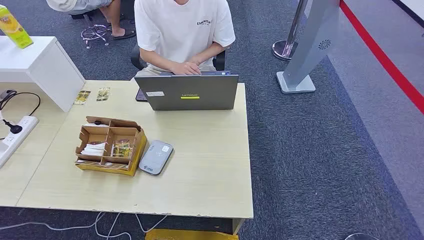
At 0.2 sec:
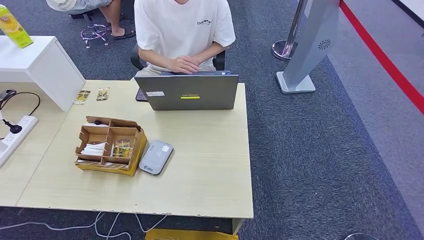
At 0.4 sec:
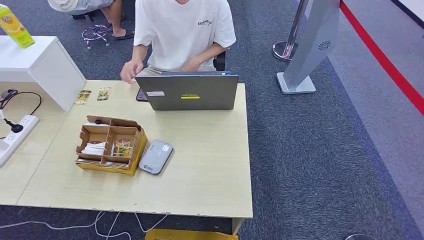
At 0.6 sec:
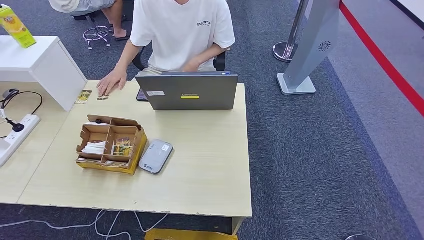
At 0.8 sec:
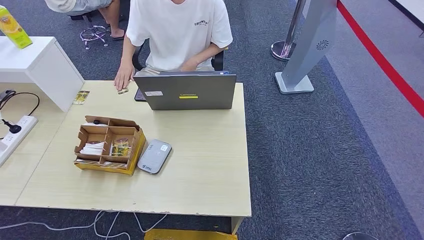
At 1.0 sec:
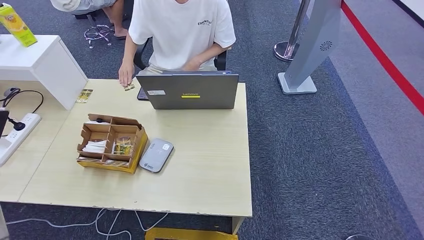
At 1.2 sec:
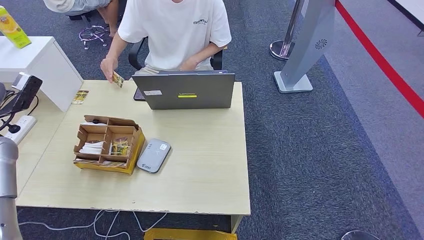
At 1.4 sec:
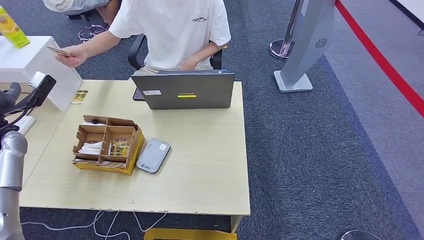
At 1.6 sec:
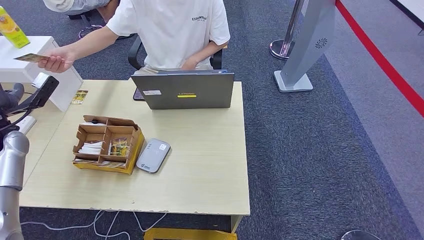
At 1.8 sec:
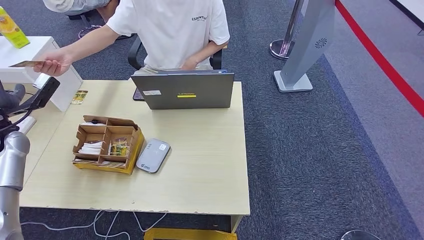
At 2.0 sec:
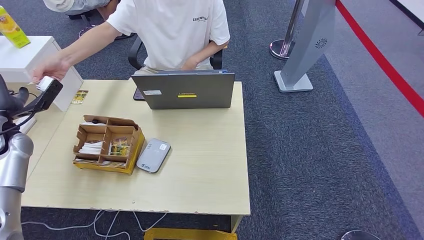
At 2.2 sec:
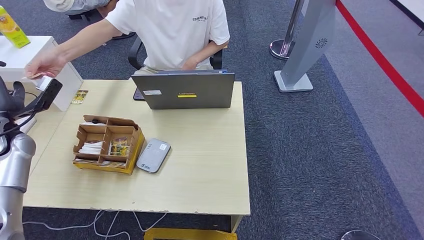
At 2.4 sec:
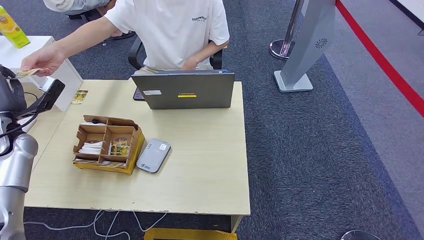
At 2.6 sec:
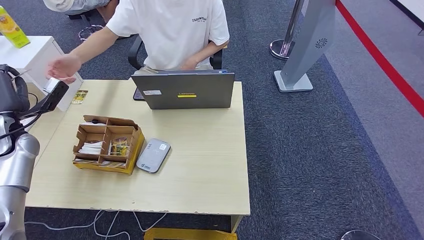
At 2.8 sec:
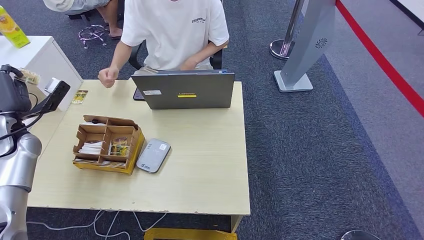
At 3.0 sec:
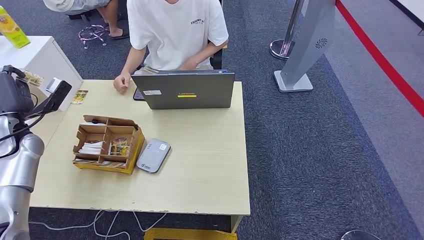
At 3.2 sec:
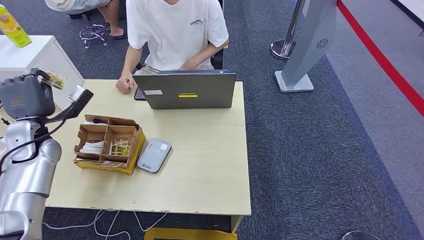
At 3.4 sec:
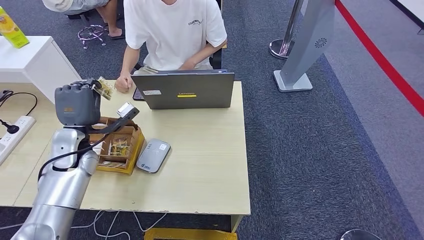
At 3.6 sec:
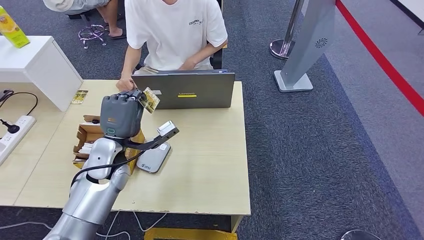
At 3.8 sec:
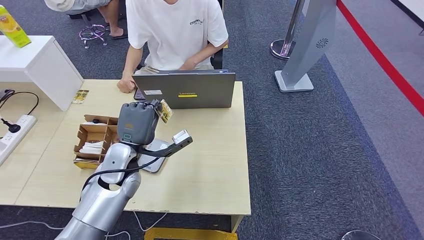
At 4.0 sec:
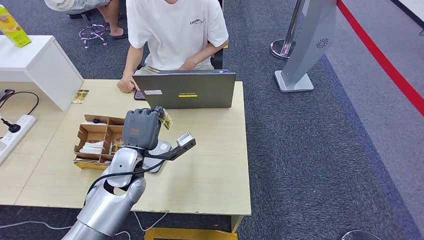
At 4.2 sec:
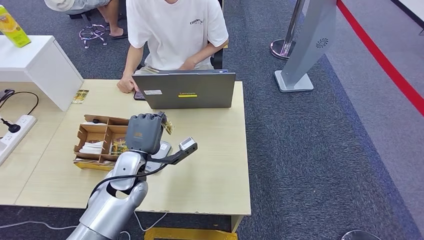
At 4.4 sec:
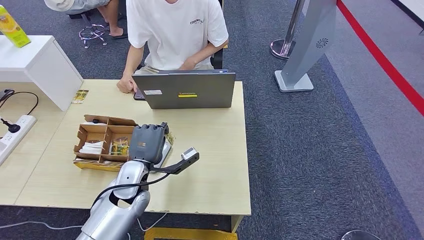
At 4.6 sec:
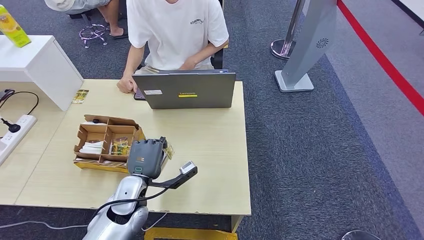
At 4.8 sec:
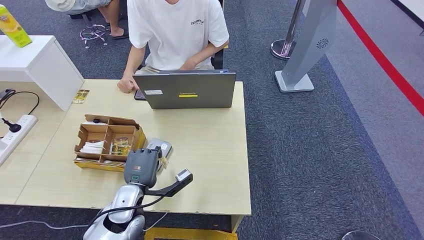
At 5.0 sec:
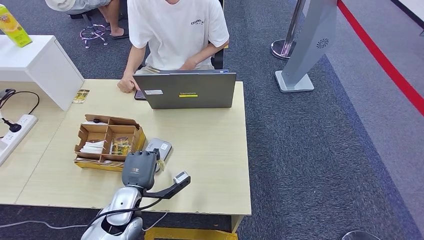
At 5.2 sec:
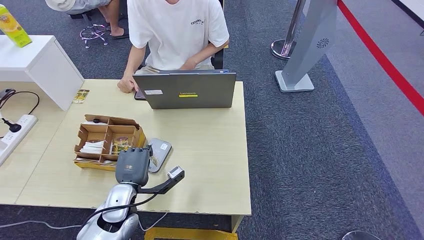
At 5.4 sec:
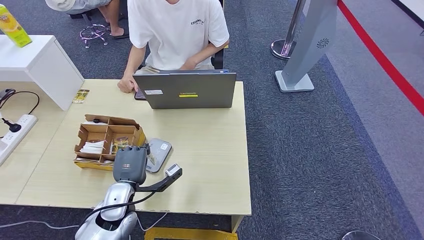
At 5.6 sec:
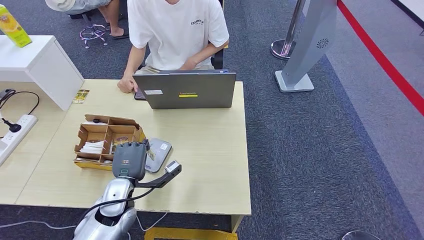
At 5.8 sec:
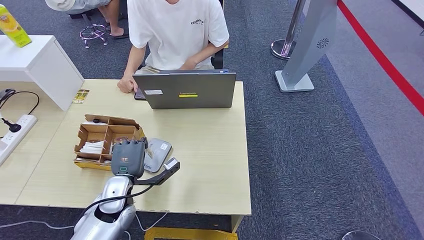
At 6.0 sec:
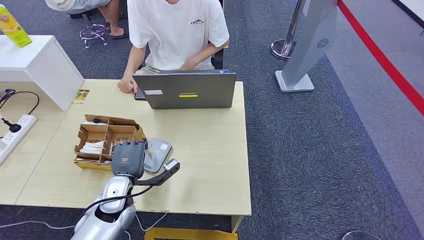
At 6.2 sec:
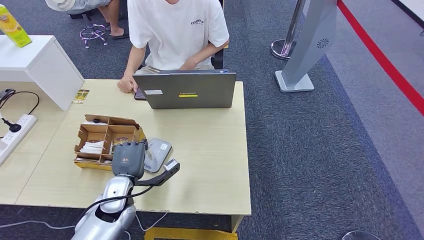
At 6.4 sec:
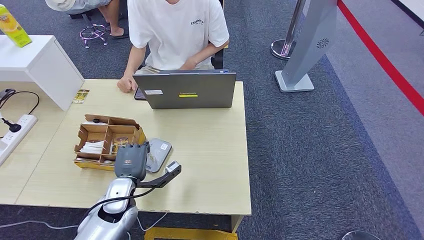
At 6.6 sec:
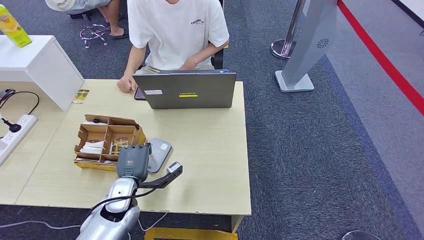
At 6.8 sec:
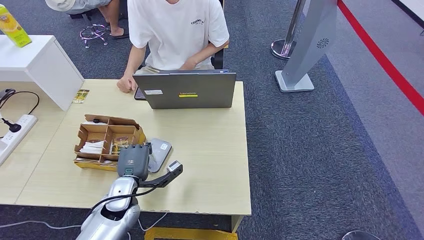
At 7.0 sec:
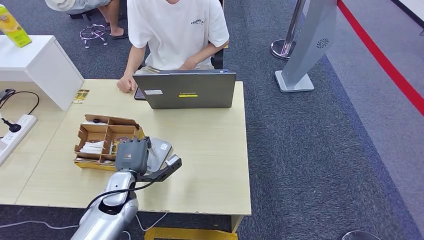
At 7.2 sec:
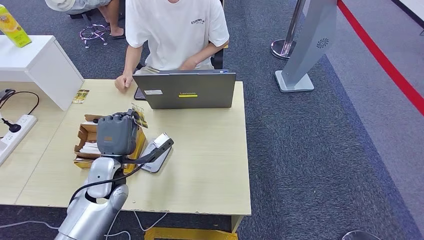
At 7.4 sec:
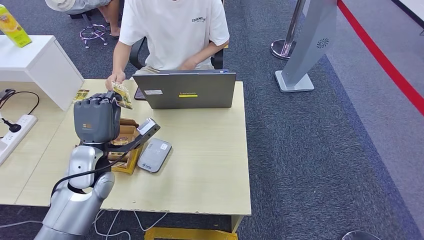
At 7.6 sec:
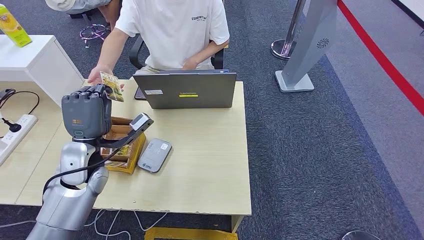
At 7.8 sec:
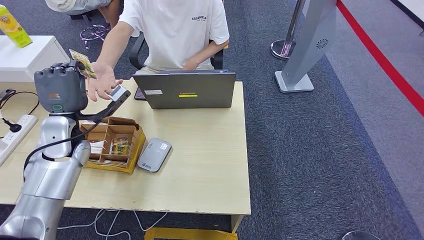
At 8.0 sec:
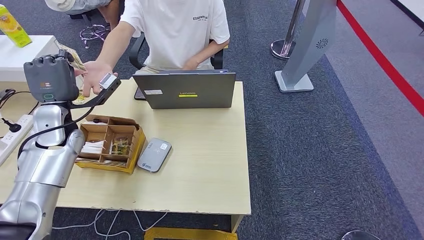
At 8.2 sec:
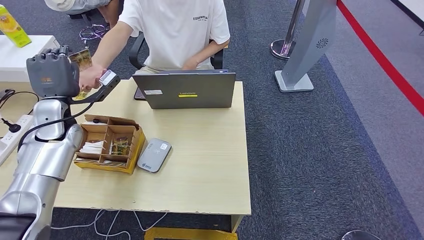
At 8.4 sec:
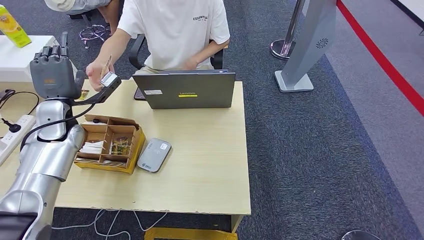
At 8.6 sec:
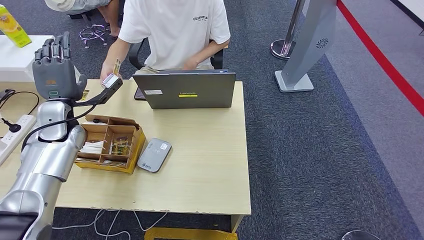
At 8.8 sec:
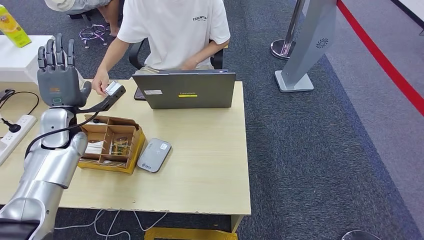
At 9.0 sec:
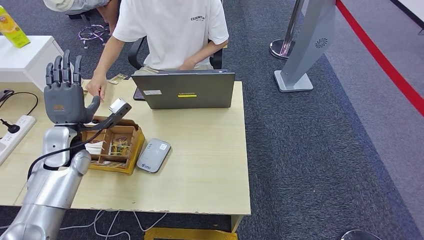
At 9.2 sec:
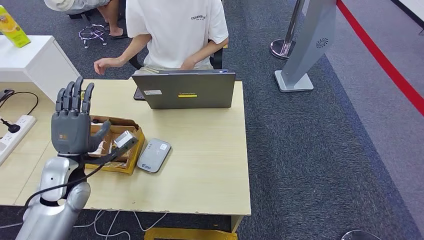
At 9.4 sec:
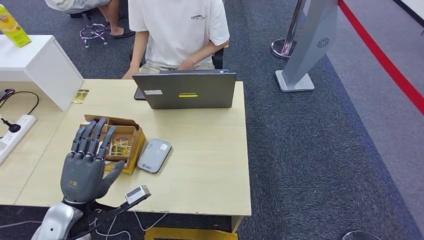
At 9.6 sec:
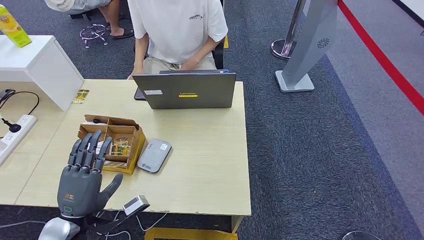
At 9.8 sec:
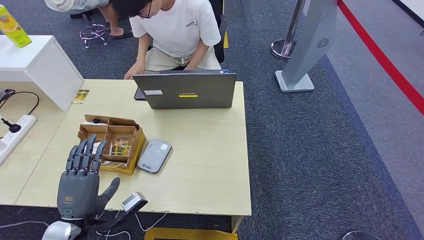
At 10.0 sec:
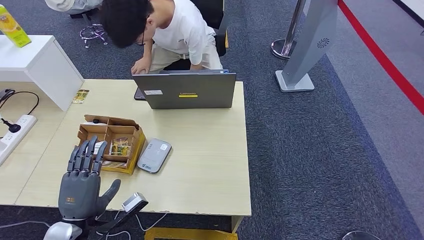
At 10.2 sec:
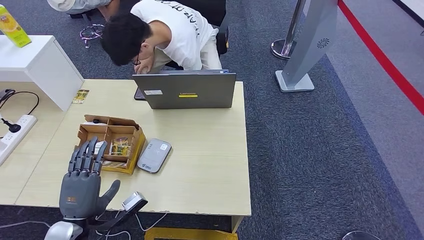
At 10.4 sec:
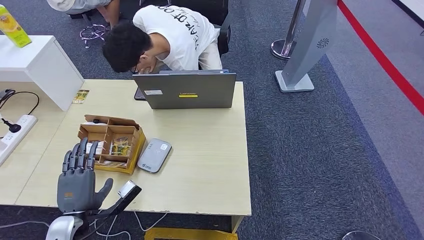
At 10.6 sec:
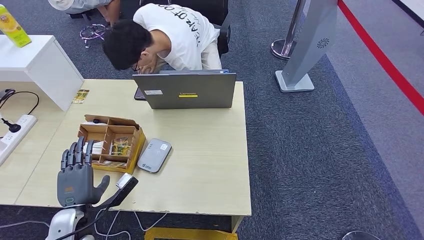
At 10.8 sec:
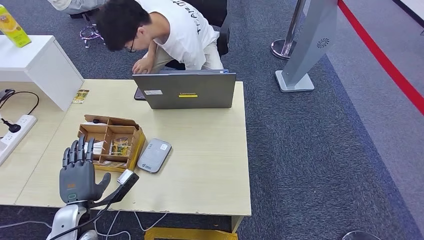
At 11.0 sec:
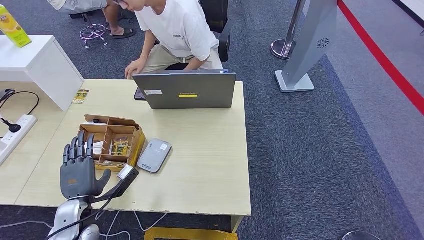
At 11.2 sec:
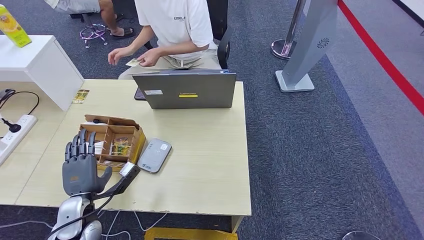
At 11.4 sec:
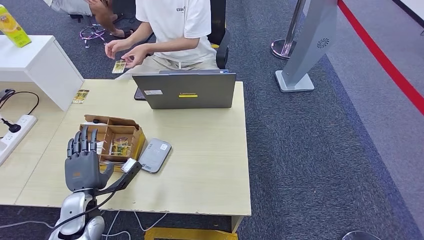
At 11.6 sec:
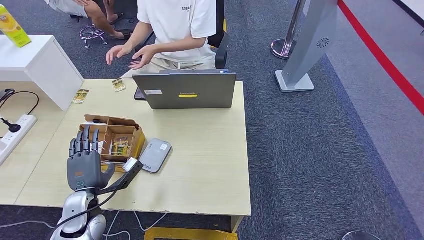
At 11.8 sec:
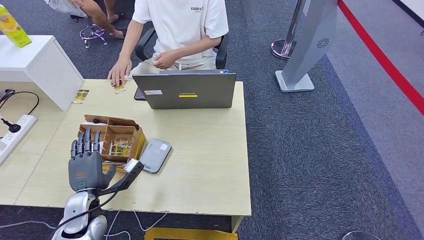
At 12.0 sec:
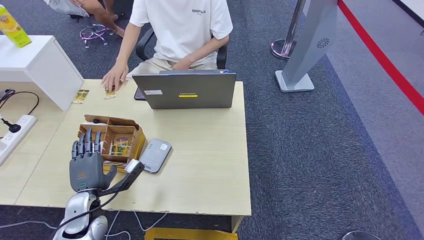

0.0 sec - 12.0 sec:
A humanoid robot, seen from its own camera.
Step, 0.0 sec - 3.0 sec: Take the ID card from the person's hand.
Step, 3.2 sec - 6.2 sec: Place the ID card on the card reader.
Step, 6.4 sec - 8.6 sec: Hand the ID card to the person.
1.6 sec - 3.0 sec: There are only small adjustments of the hands.
3.0 sec - 4.4 sec: The left hand heads to the right, covering roughly 30 cm.
4.4 sec - 6.0 sec: The left hand moves about 5 cm.
6.0 sec - 7.6 sec: The left hand goes approximately 15 cm upward, forward and to the left.
7.6 sec - 9.0 sec: The left hand shifts approximately 5 cm to the left.
10.4 sec - 12.0 sec: The left hand goes about 5 cm forward.

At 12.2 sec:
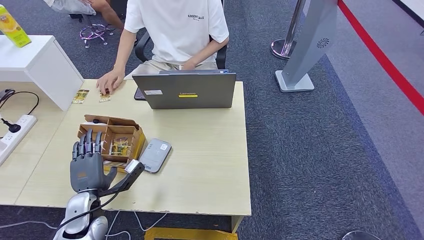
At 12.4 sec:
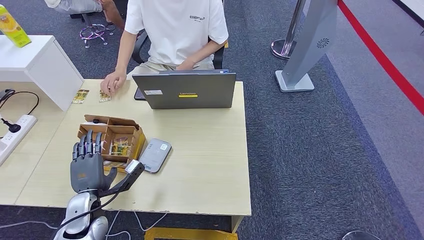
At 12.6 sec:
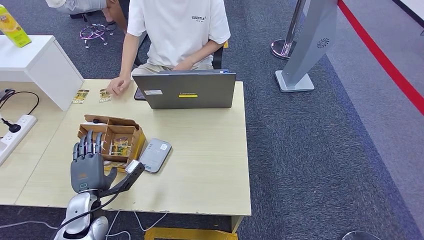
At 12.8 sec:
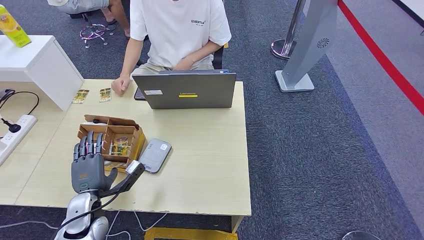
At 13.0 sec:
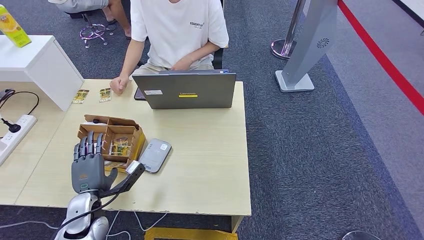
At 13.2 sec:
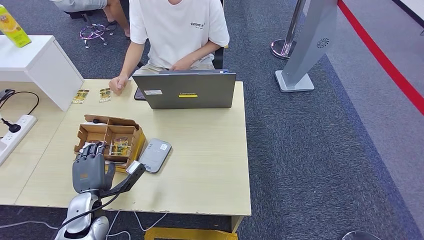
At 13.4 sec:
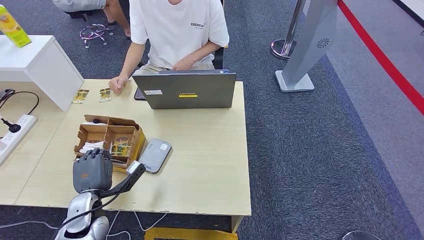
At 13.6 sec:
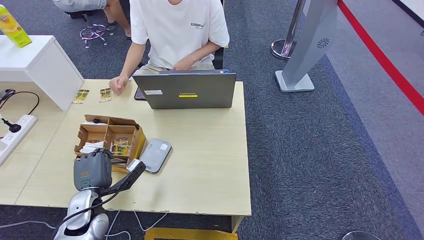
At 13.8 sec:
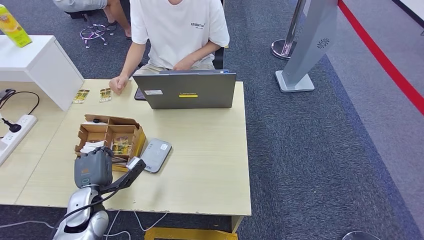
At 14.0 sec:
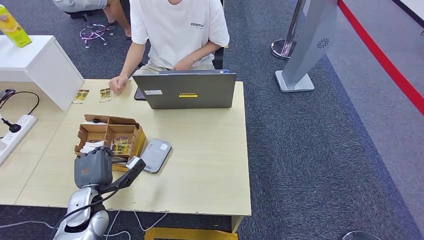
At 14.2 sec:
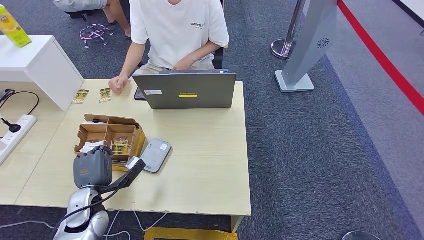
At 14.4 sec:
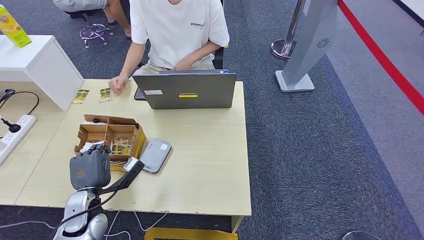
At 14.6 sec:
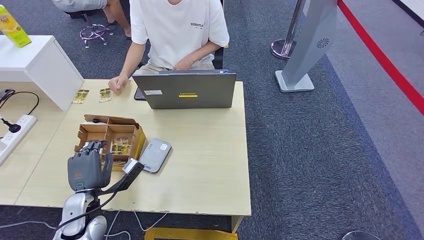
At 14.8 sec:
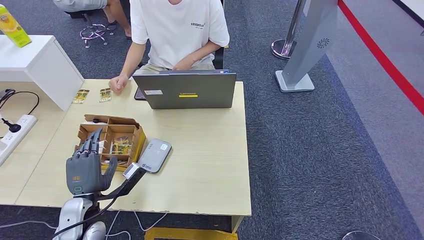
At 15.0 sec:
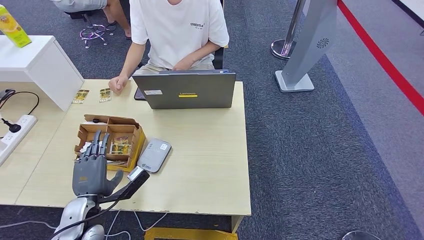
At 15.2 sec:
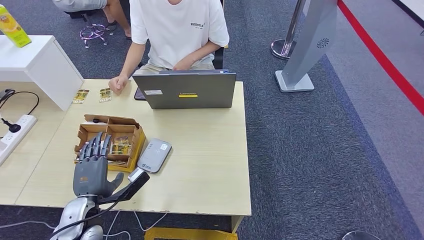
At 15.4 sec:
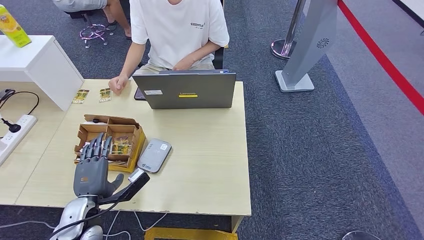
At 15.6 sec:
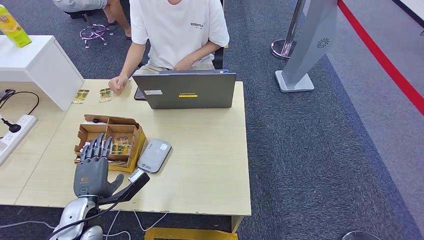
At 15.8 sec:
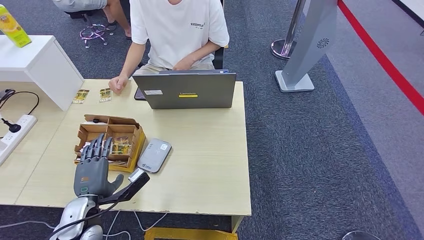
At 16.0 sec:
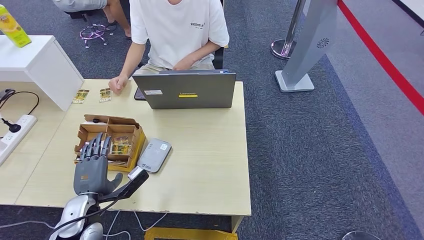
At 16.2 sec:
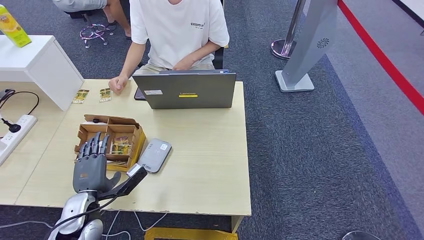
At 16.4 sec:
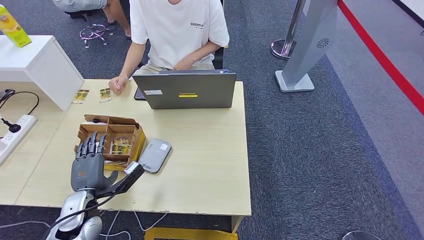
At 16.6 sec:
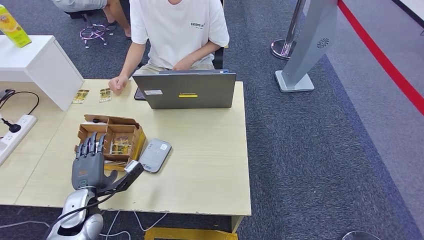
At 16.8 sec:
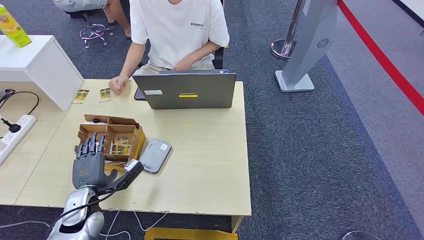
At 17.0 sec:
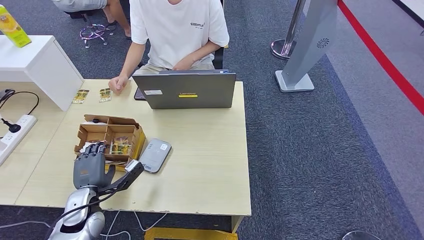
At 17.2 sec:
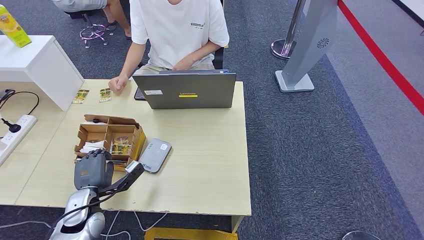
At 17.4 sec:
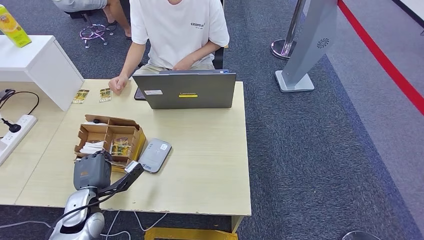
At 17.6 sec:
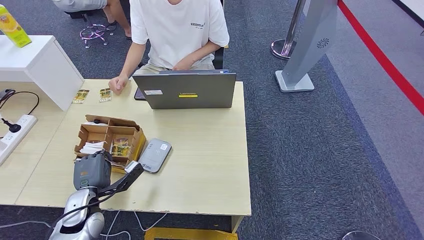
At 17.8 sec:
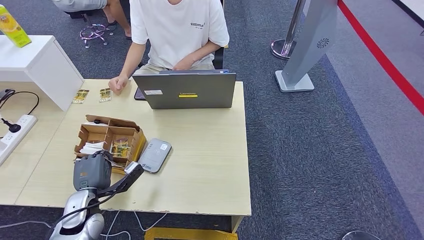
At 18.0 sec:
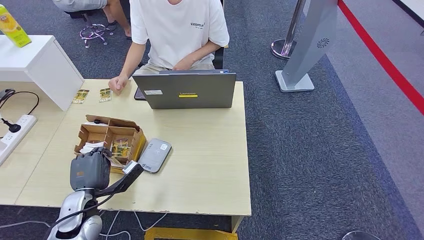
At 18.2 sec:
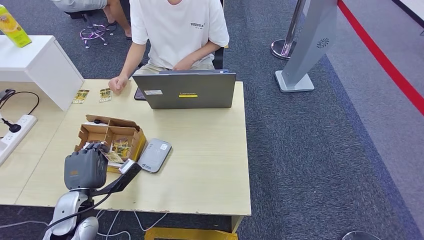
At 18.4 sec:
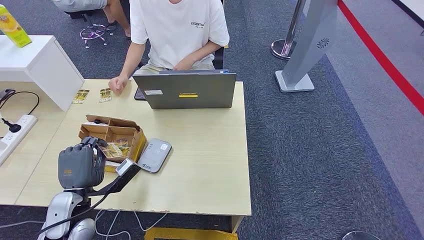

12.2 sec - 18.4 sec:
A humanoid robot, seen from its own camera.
12.2 sec - 16.8 sec: The hands move only a little.
16.8 sec - 18.4 sec: The left hand heads upward, covering about 5 cm.
